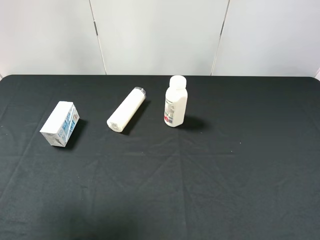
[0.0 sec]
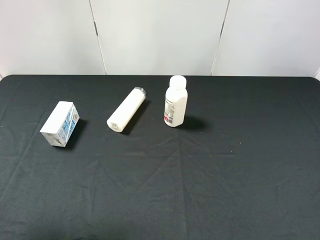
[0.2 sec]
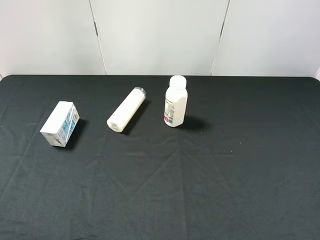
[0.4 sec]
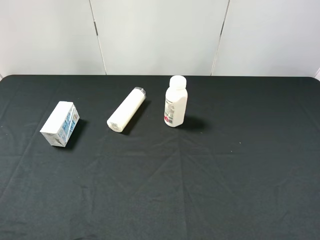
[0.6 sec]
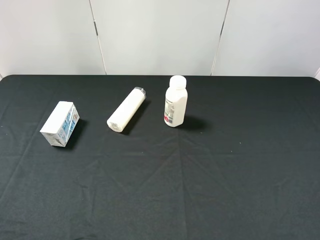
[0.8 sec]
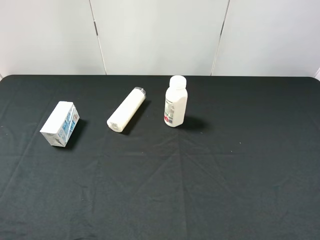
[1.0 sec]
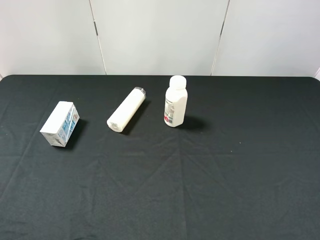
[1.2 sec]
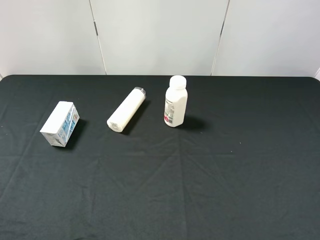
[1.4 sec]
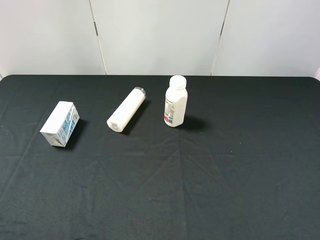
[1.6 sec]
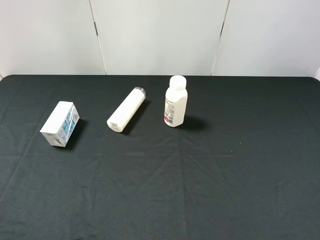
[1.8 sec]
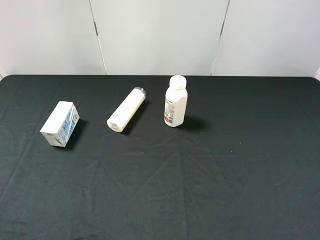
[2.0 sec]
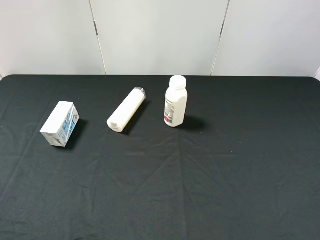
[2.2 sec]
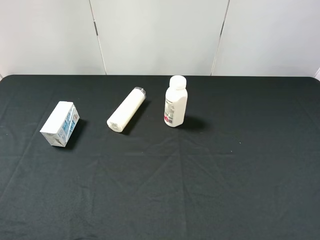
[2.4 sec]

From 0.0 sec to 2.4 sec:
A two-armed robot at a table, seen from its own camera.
Task of the whole recording: use the right gripper to pick up the item and transfer it from the right gripper to the left gripper.
From 0.0 sec to 1.2 sec: The left gripper shifts roughly 15 cm backward and downward.
From 1.2 sec to 2.4 sec: Neither gripper changes place.
